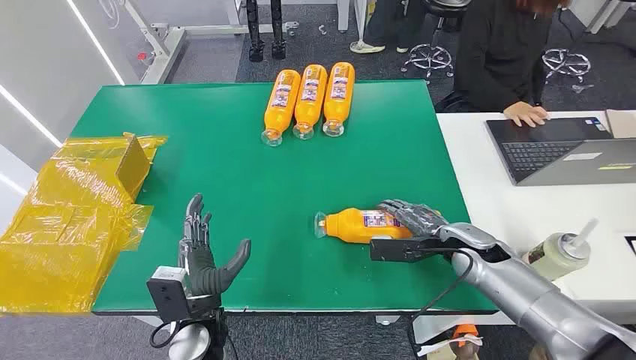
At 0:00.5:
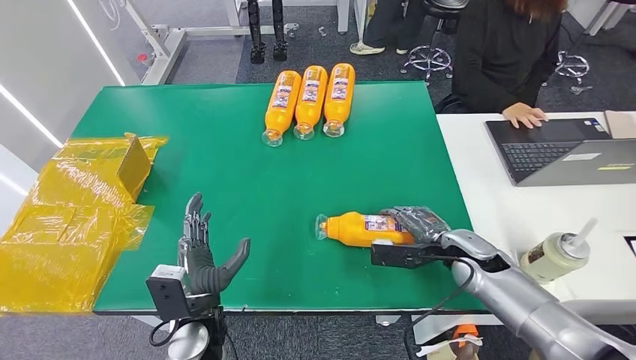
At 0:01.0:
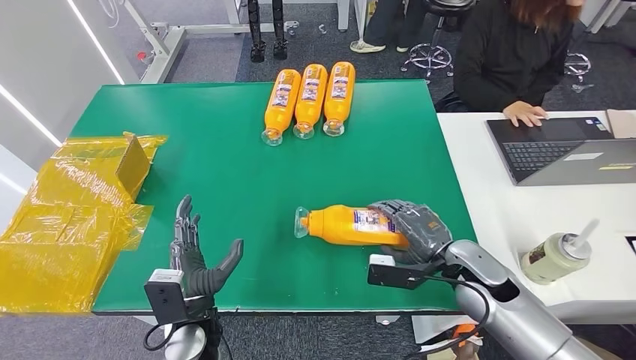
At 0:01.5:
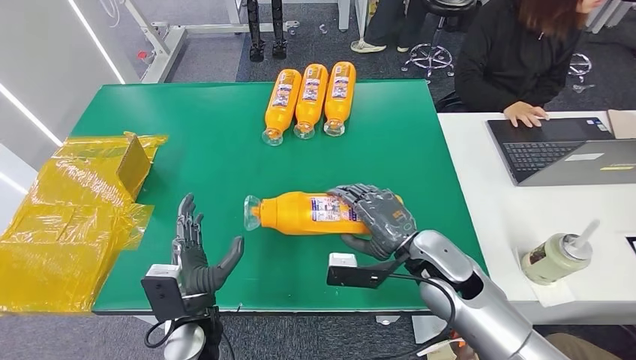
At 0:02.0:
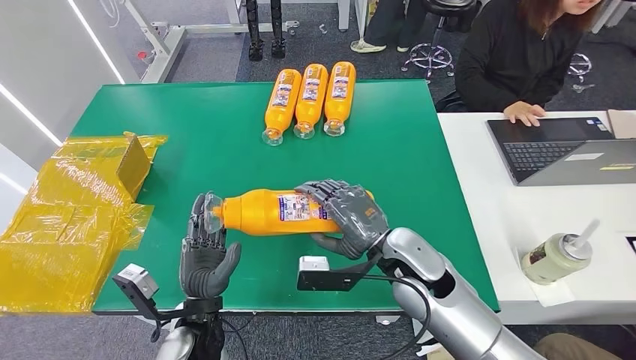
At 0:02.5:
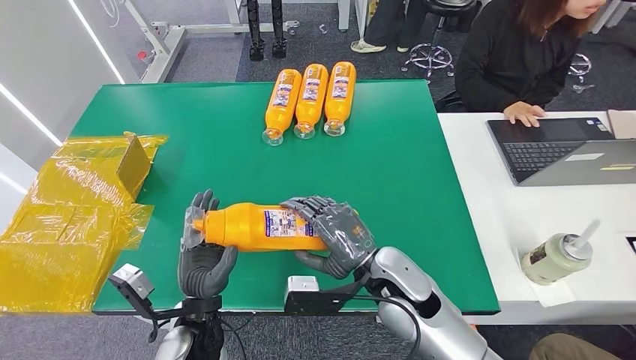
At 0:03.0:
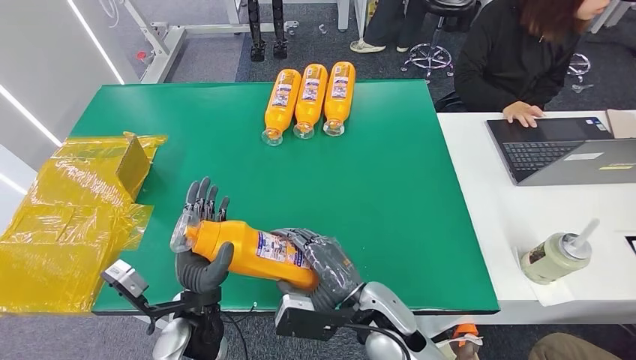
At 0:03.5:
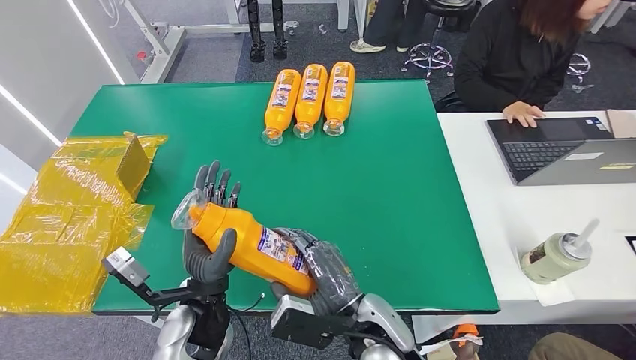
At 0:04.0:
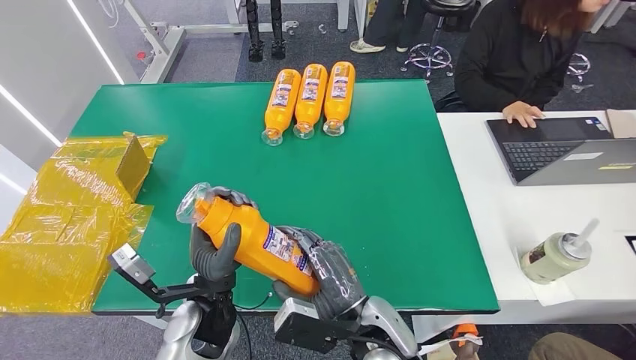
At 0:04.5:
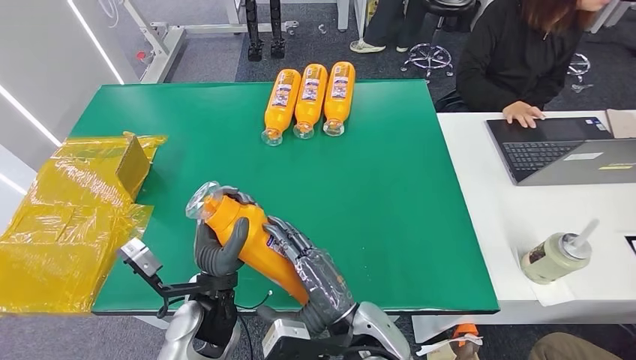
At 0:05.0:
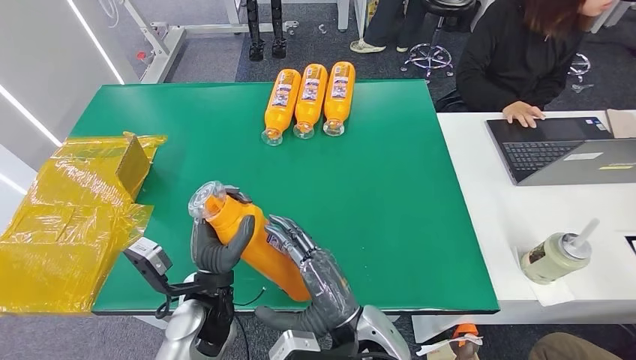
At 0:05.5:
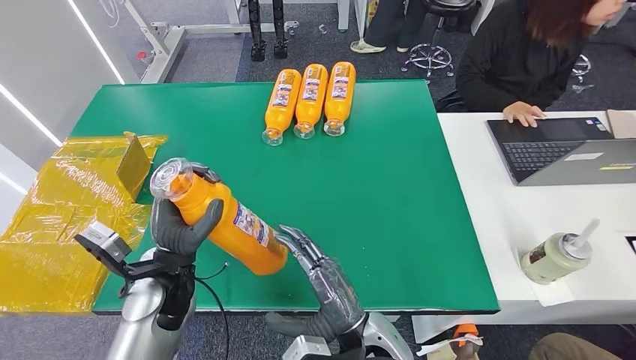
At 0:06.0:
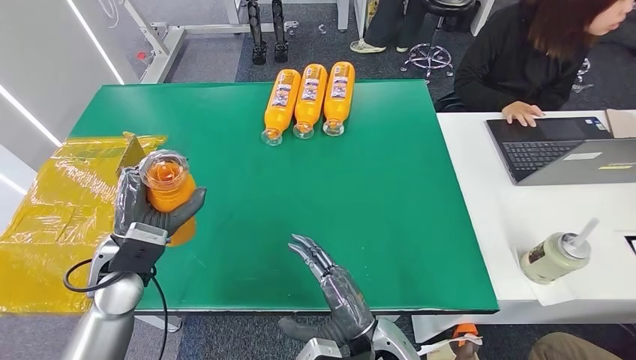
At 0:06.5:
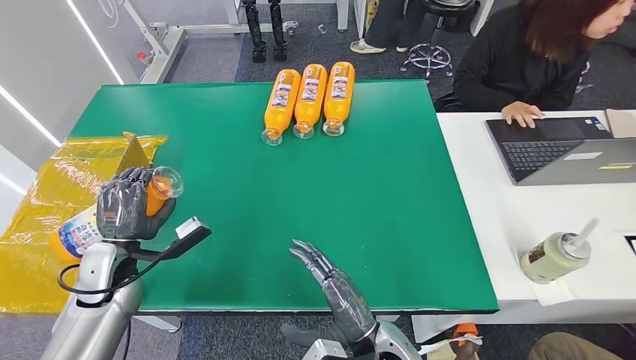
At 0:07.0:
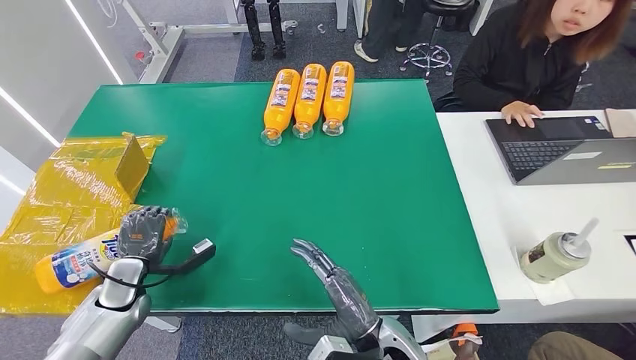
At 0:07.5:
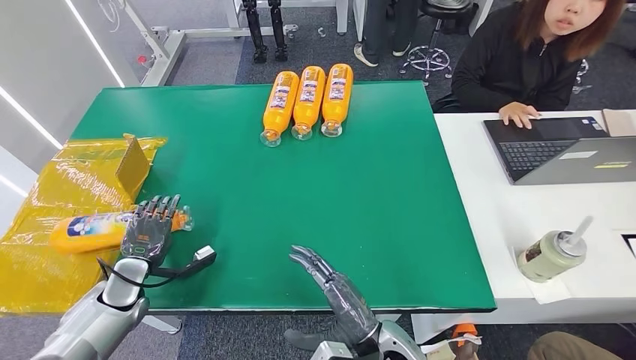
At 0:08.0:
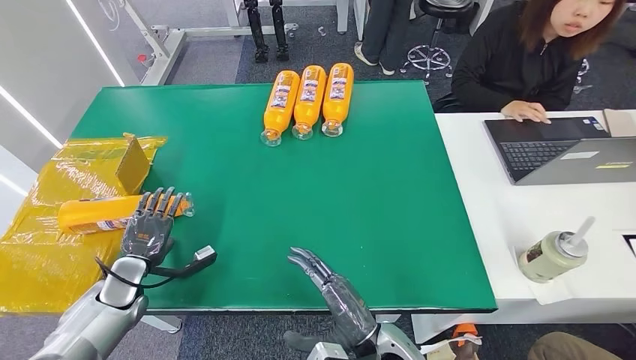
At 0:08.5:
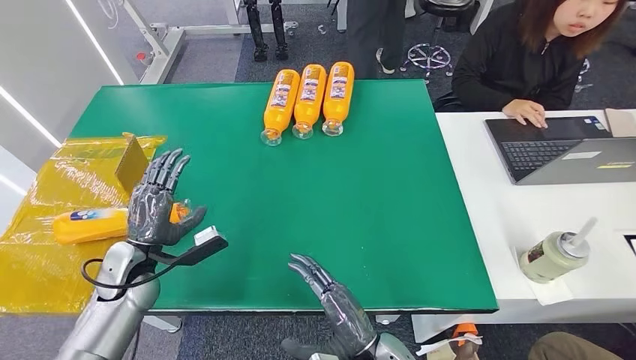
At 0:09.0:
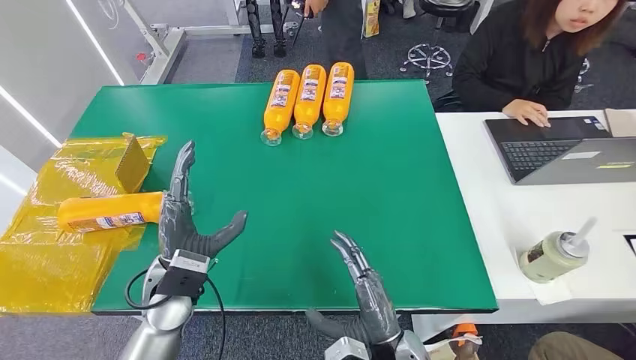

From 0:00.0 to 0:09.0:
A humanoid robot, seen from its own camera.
Step, from 0:00.0 to 0:02.0: Pick up the bottle from the table.
Step, from 0:02.5 to 0:08.5: Turn the bottle to the front side.
From 0:02.0 to 0:04.5: The left hand ends up some 5 cm from where it was, while the right hand travels backward and to the left by approximately 15 cm.
From 0:04.5 to 0:07.0: The right hand moves downward, roughly 5 cm. The left hand goes roughly 25 cm to the left.
From 0:07.0 to 0:09.0: The left hand travels to the right and upward by roughly 20 cm.
